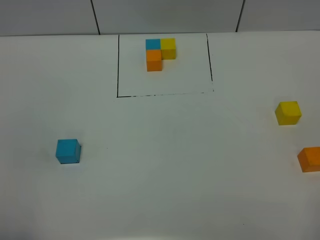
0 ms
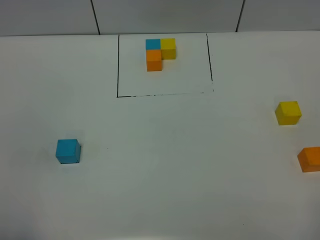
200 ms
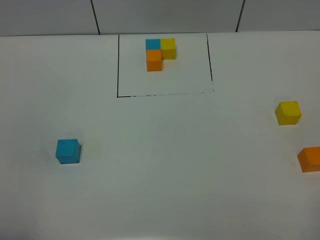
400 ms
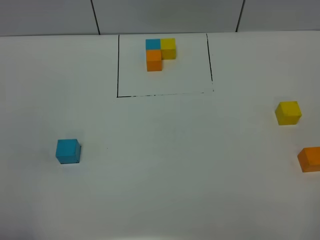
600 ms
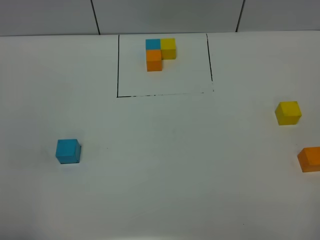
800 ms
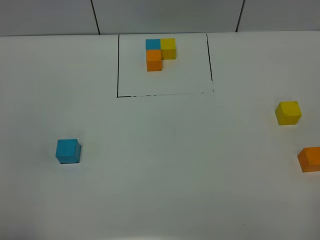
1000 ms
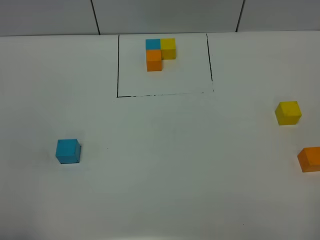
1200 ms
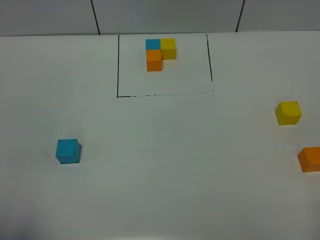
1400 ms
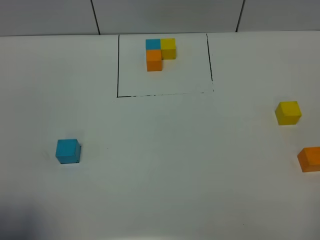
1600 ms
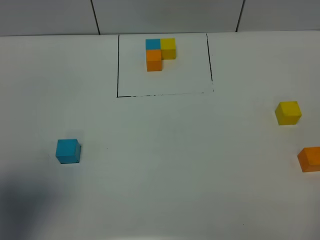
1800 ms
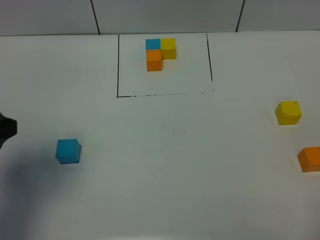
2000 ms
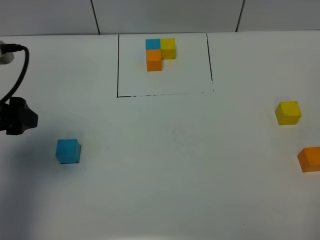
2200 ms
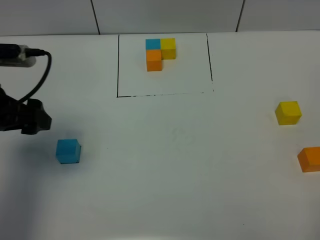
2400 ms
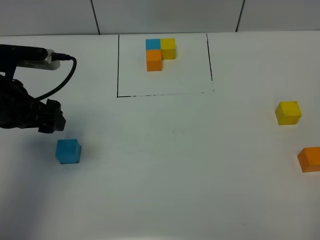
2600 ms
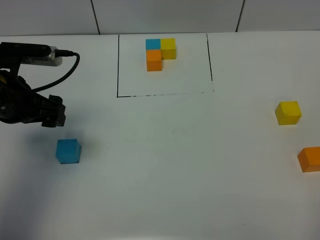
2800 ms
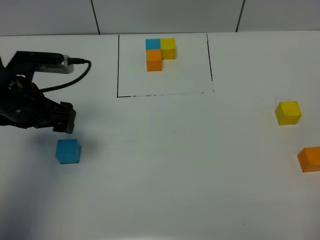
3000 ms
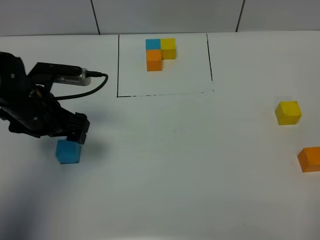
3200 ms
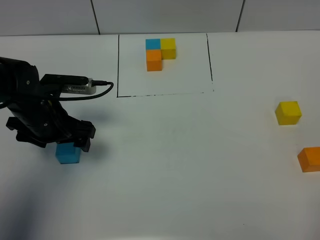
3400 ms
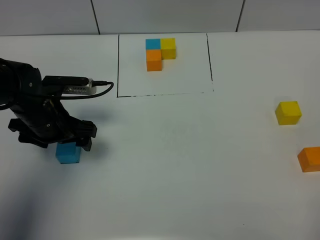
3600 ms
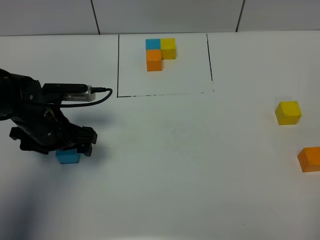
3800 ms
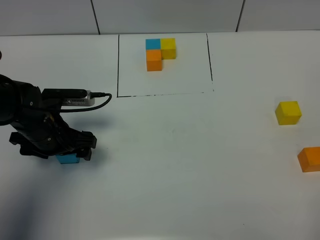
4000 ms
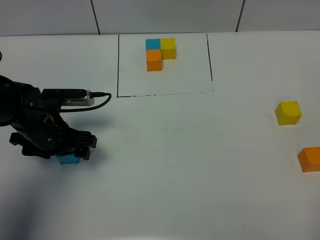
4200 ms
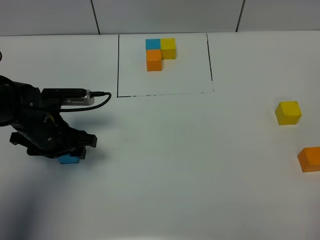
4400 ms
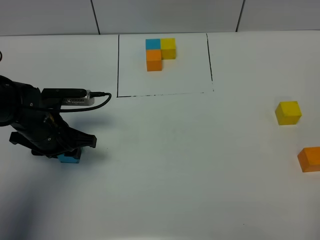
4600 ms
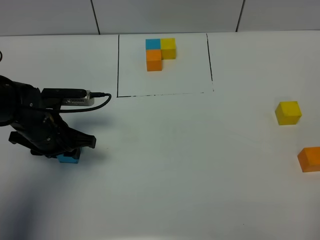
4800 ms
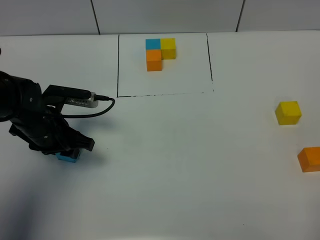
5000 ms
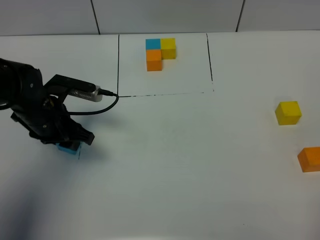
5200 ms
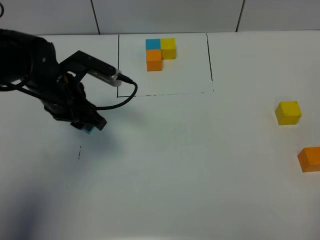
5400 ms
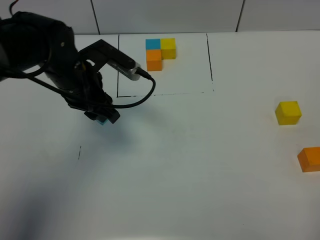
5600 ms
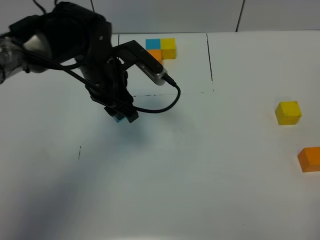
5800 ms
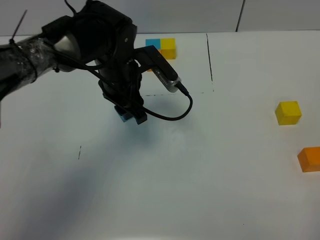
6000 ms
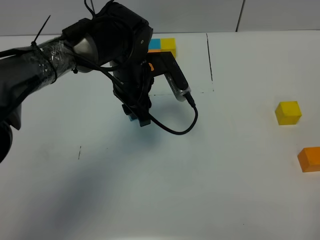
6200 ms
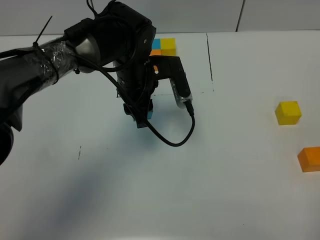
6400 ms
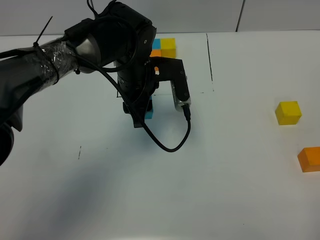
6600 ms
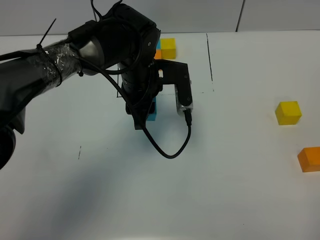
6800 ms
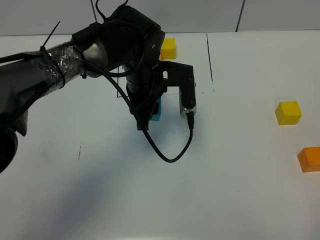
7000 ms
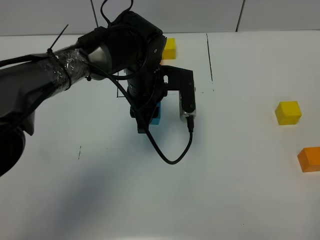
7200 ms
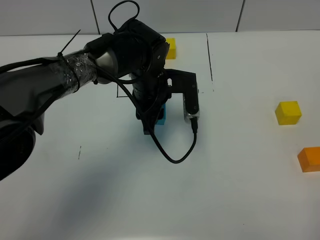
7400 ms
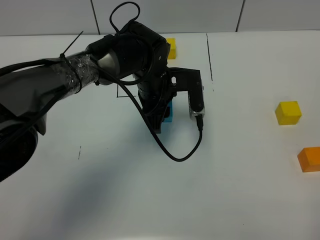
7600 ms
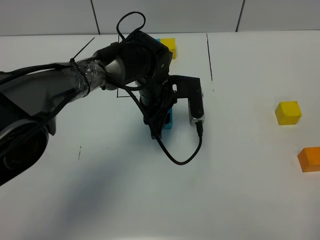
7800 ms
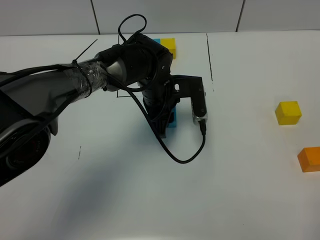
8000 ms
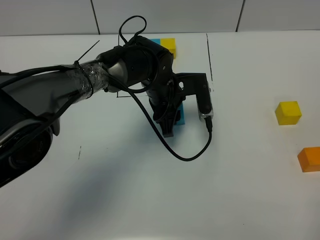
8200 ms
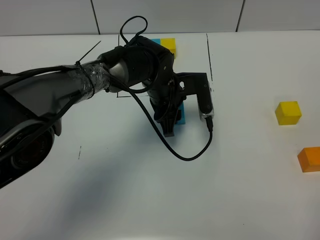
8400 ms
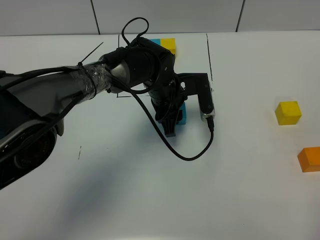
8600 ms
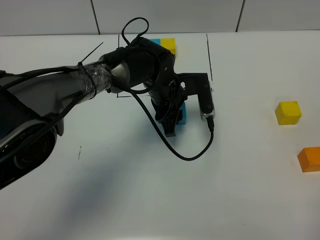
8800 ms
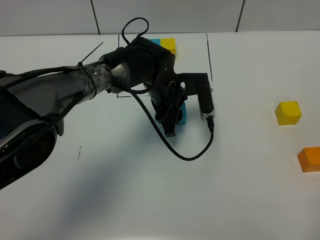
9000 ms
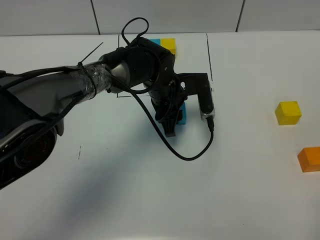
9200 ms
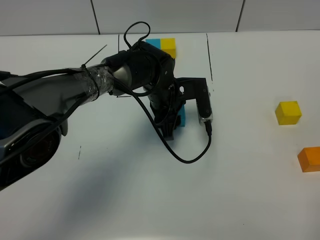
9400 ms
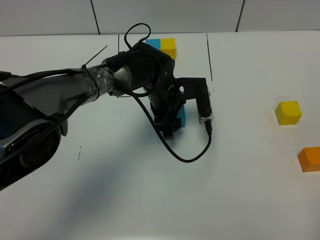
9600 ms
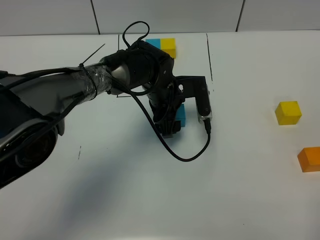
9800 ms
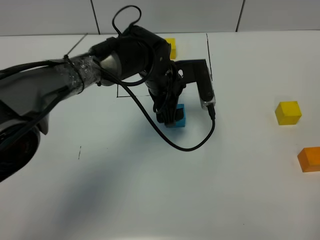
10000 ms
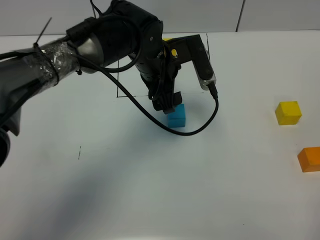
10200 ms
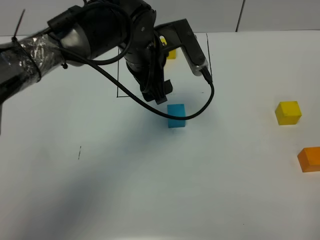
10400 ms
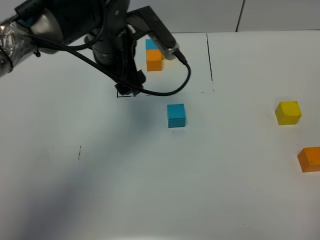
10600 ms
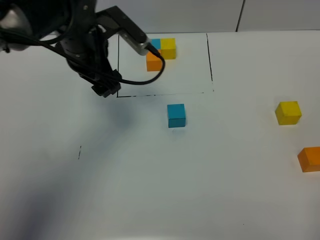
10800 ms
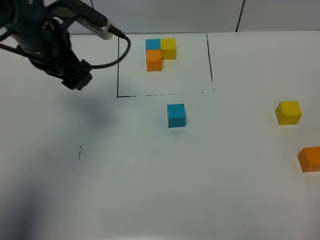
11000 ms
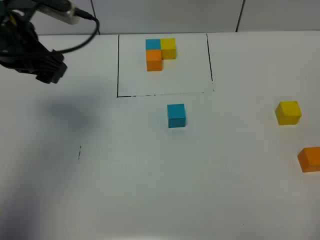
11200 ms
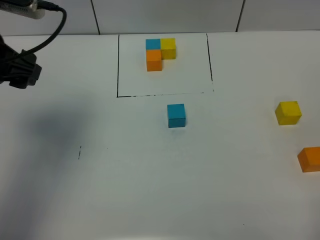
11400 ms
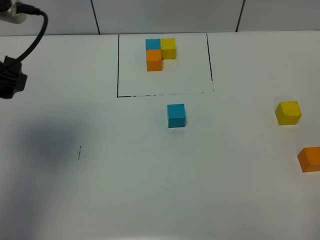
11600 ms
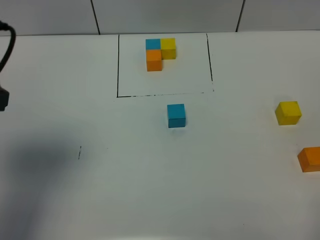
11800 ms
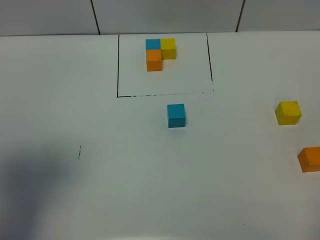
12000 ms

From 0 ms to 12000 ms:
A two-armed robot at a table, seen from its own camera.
Task of the whole recording: According to the building block template in front, assemble the scattered blocks together.
Step, from 0 ms to 9400 ms: Put the blue build block in the center of the table.
From 0 ms to 1600 ms: The left gripper moves forward, roughly 5 cm, and opens up.
From 1600 ms to 3000 ms: The left gripper shifts about 25 cm forward and downward.
From 3000 ms to 4400 ms: The left gripper moves downward, some 5 cm, and closes up.
From 4400 ms to 6000 ms: The left gripper heads to the right, forward and upward, covering about 20 cm.
From 6000 ms to 7600 ms: The left gripper goes approximately 5 cm to the right.
From 7600 ms to 9000 ms: There are only small adjustments of the grippers.
From 9000 ms to 10400 ms: The left gripper moves upward, some 10 cm, and opens.
From 10400 ms to 12000 ms: The left gripper heads to the left, backward and upward, covering approximately 35 cm.

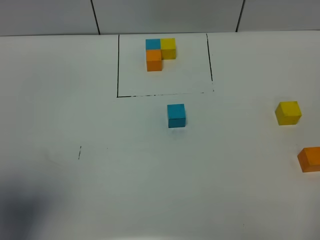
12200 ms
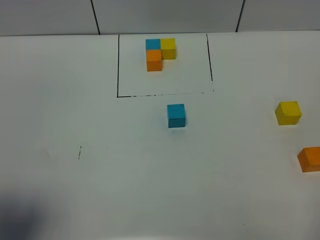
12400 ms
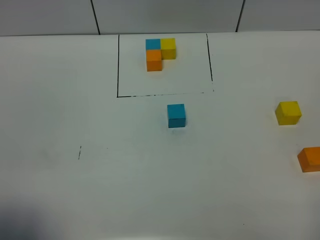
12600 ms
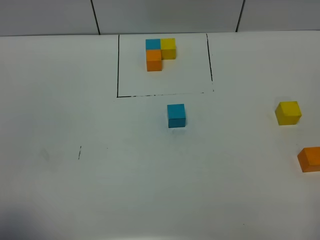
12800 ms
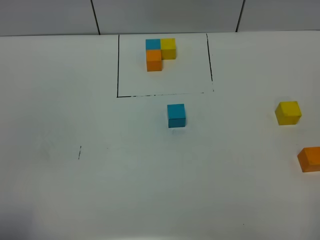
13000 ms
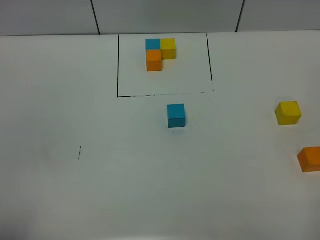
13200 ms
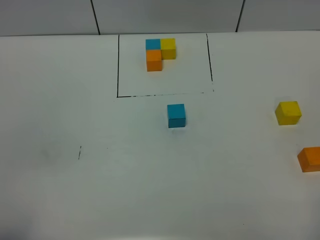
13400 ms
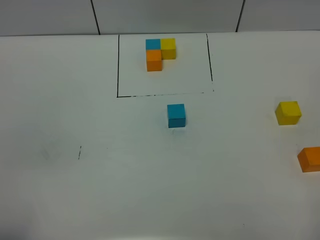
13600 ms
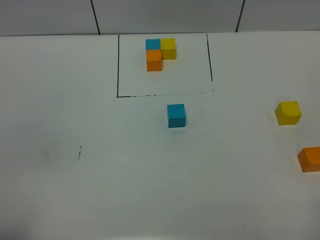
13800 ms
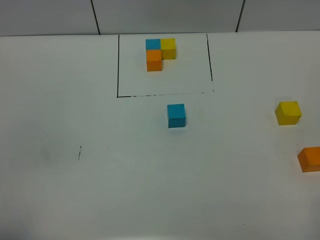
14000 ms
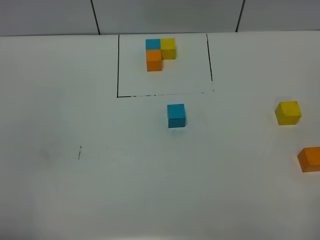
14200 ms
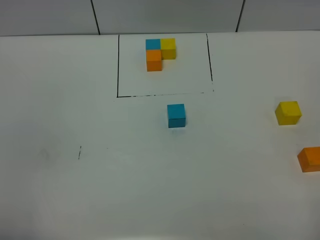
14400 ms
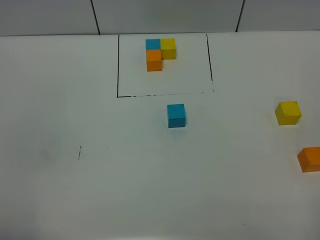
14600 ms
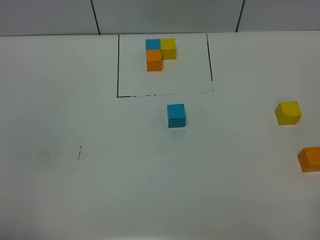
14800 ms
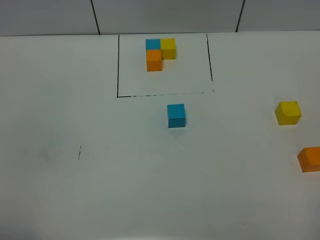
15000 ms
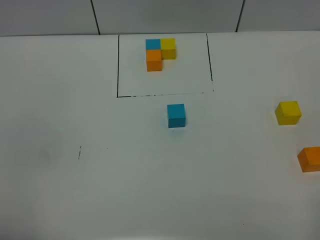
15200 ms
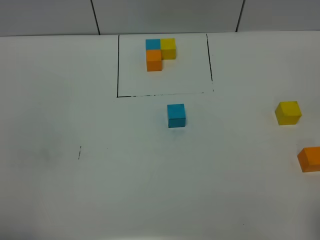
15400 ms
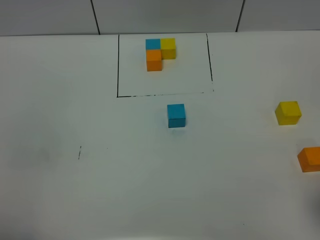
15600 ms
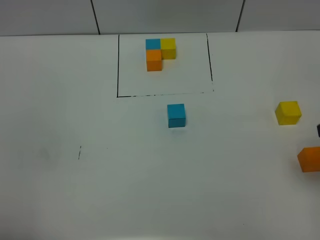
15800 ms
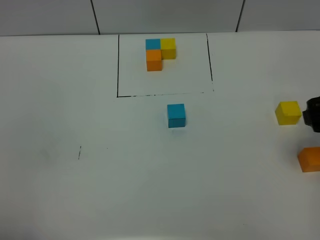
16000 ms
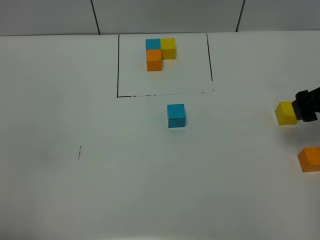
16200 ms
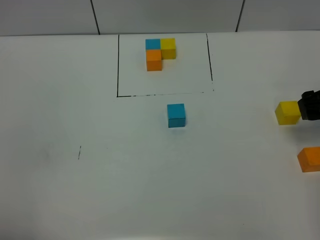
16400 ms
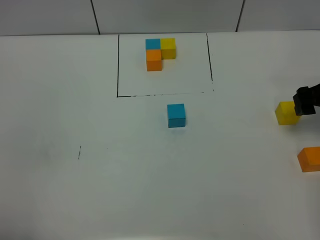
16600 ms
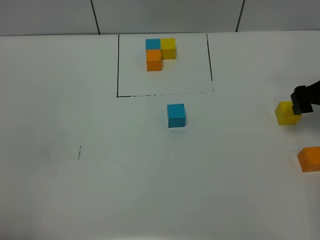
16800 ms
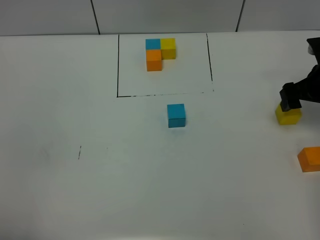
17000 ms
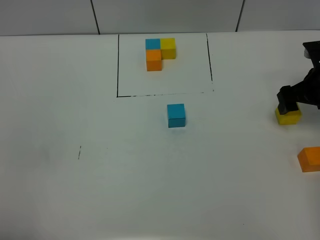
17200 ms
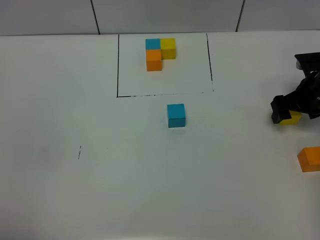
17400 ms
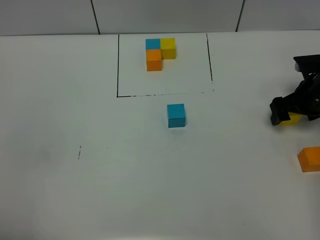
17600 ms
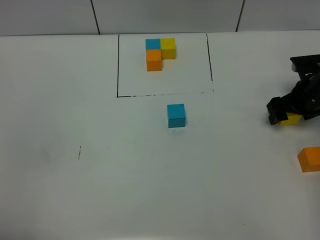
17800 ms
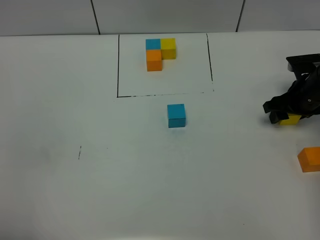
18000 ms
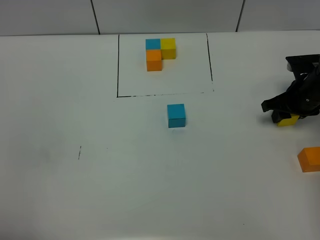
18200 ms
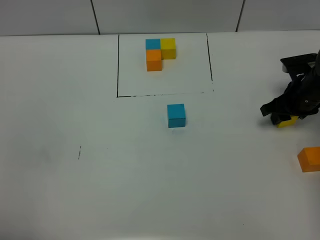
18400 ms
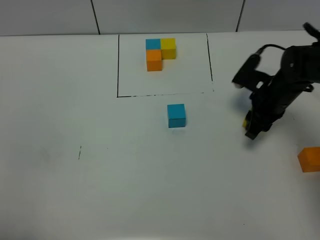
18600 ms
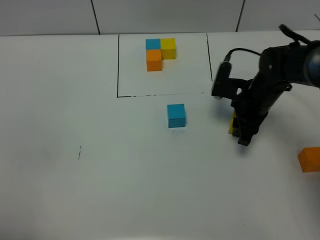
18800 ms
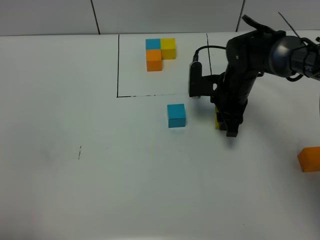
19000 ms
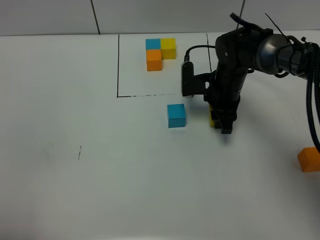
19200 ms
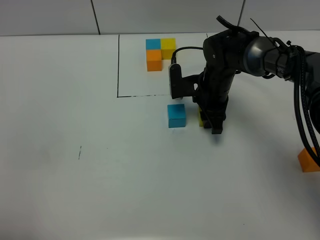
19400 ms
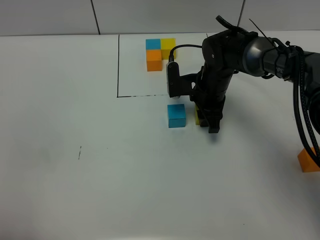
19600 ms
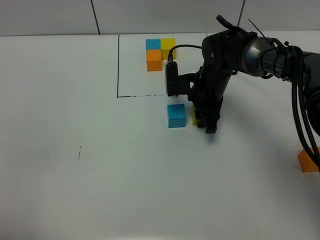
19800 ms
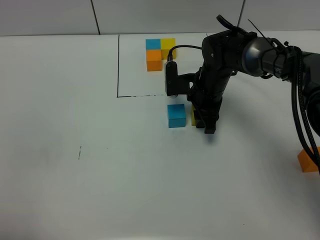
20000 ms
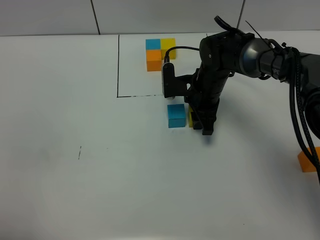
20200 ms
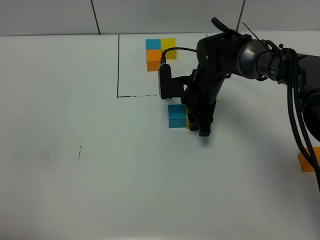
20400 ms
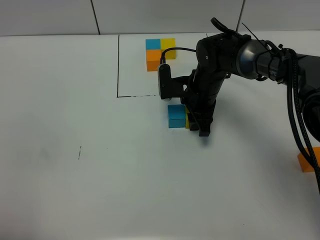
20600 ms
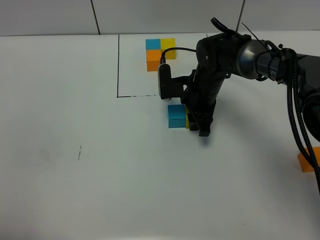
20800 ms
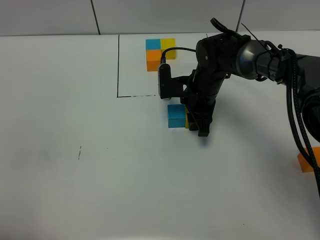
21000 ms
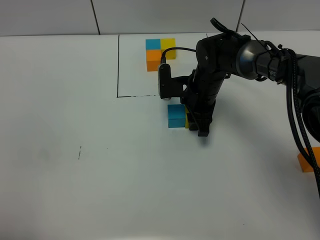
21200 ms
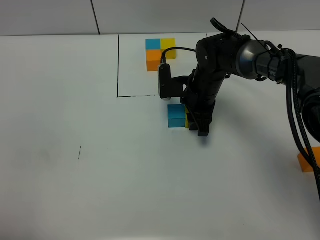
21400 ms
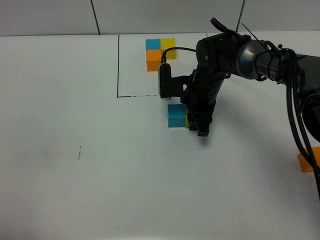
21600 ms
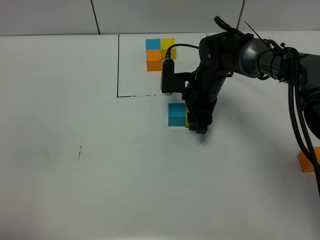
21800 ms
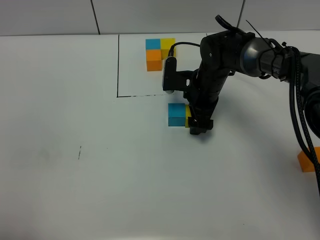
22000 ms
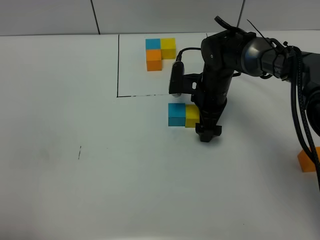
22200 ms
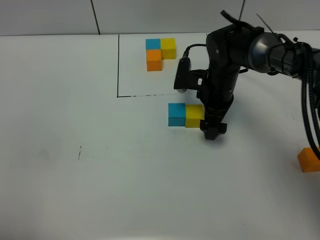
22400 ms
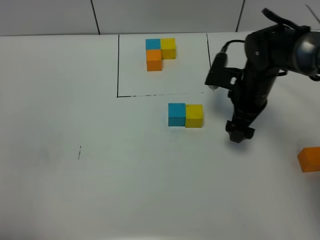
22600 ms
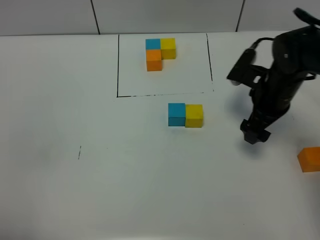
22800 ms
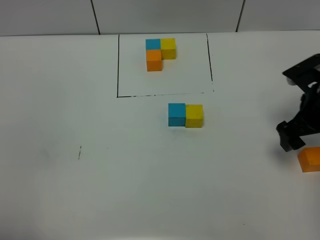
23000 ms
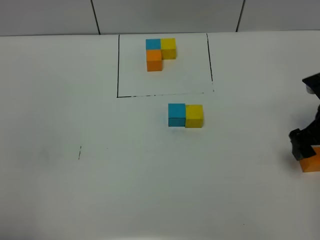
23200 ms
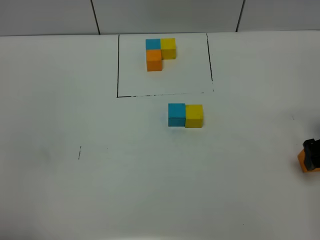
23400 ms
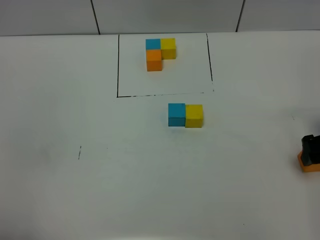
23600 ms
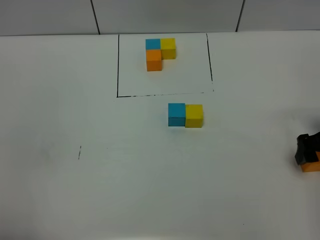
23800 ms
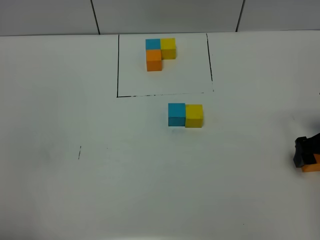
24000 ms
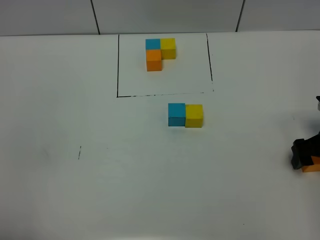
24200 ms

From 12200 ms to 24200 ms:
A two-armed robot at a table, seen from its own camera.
Task of the whole recording: According to the building block template in front, assemble the scattered blocks together.
Step, from 12200 ms to 22000 ms: Put the yellow build block on the right of the blue build block.
From 12200 ms to 13800 ms: The left gripper heads backward and downward, covering roughly 10 cm.
From 15200 ms to 16600 ms: The right gripper travels forward by some 35 cm.
From 16600 ms to 18200 ms: The right gripper travels downward by approximately 5 cm, and closes up.
From 18200 ms to 19800 ms: The right gripper shifts some 20 cm to the left.
From 19800 ms to 21200 ms: There are only small adjustments of the grippers.
From 21200 ms to 22600 ms: The right gripper is displaced to the right by roughly 10 cm, and opens its fingers.
From 22600 ms to 24200 ms: The right gripper travels to the right and backward by roughly 20 cm.
